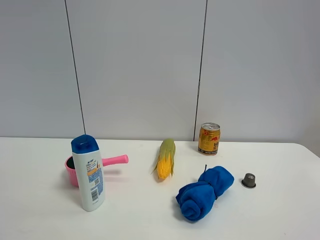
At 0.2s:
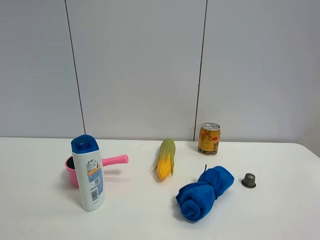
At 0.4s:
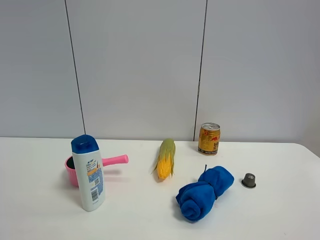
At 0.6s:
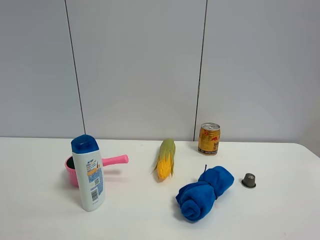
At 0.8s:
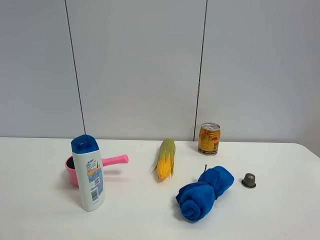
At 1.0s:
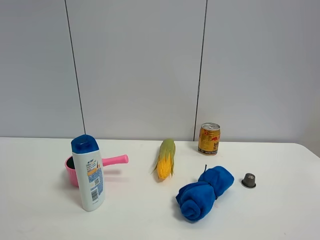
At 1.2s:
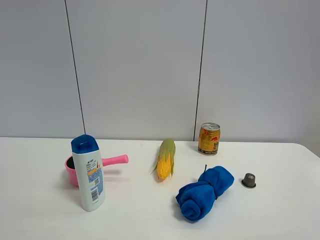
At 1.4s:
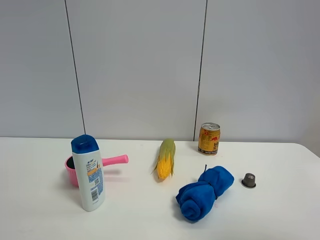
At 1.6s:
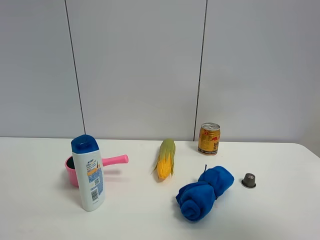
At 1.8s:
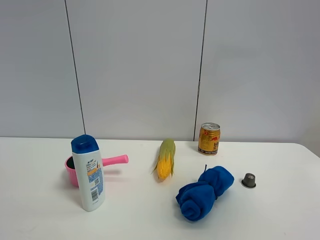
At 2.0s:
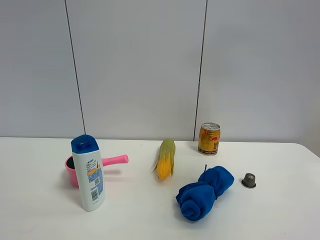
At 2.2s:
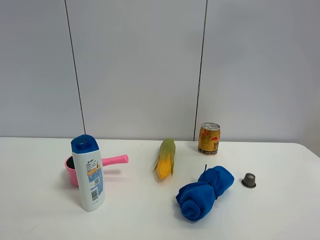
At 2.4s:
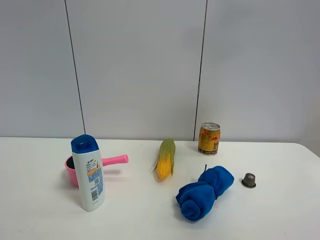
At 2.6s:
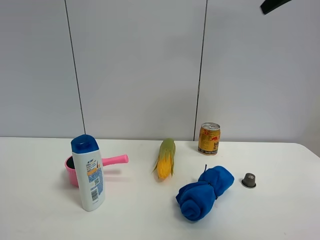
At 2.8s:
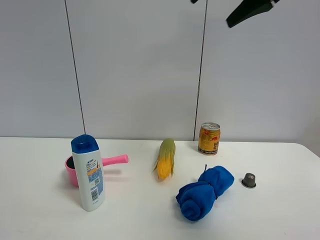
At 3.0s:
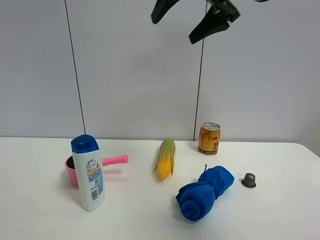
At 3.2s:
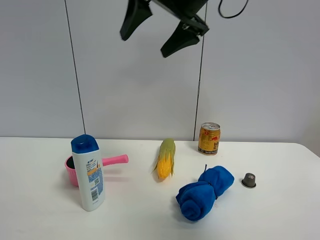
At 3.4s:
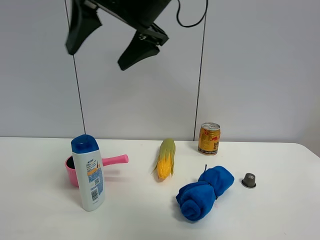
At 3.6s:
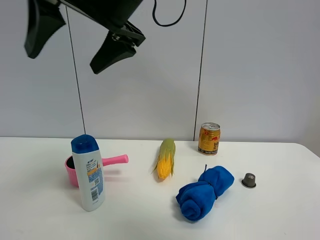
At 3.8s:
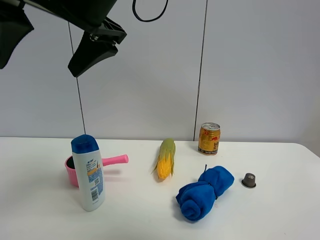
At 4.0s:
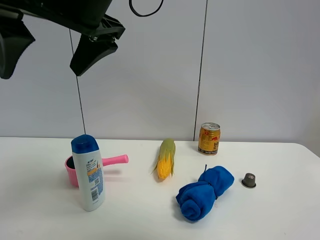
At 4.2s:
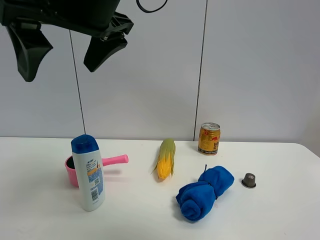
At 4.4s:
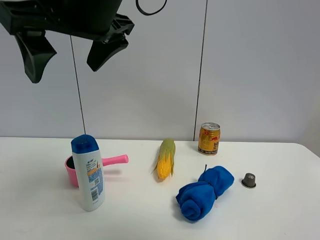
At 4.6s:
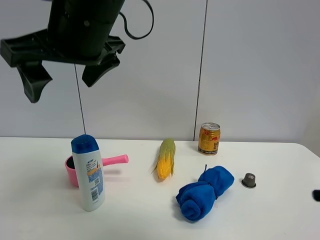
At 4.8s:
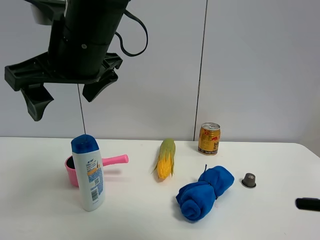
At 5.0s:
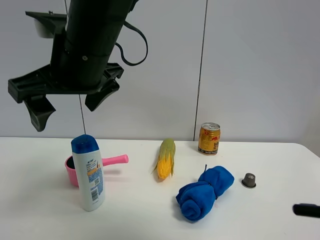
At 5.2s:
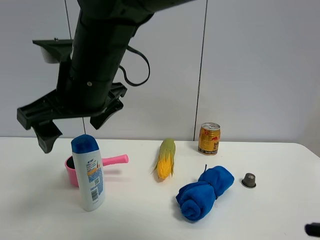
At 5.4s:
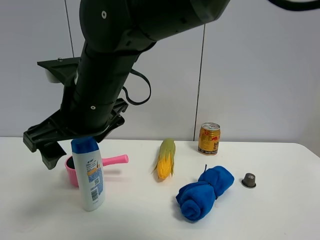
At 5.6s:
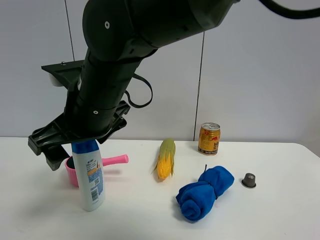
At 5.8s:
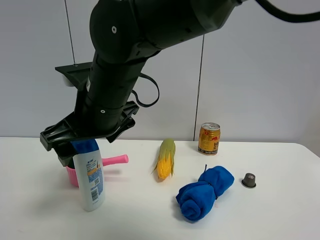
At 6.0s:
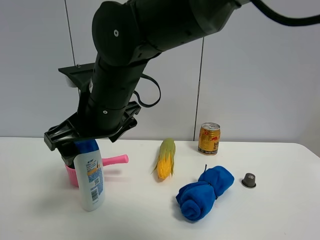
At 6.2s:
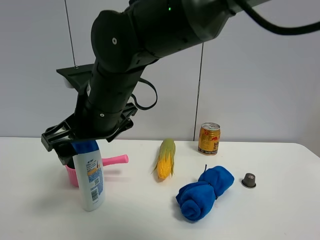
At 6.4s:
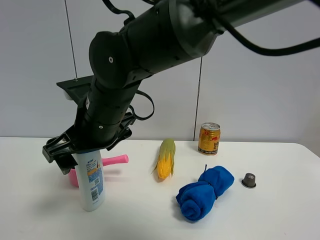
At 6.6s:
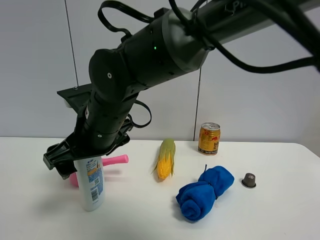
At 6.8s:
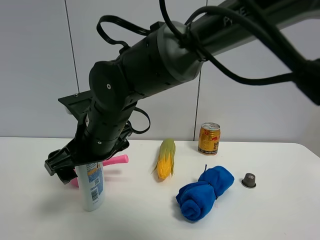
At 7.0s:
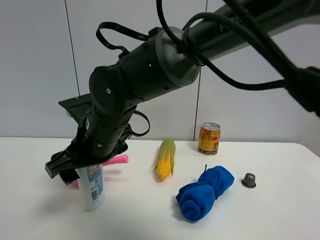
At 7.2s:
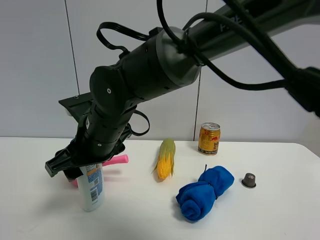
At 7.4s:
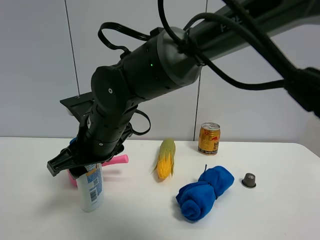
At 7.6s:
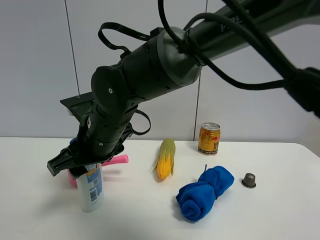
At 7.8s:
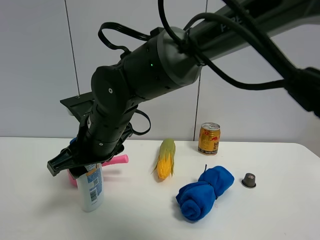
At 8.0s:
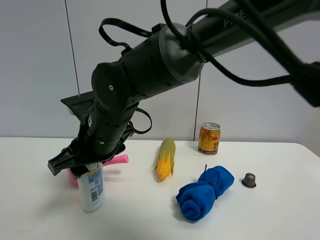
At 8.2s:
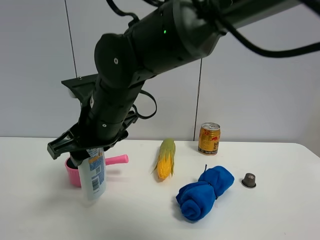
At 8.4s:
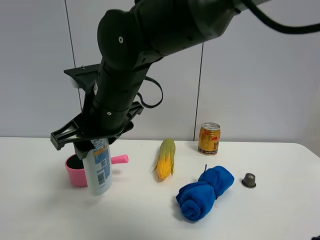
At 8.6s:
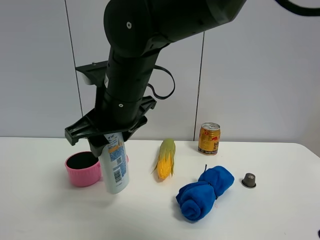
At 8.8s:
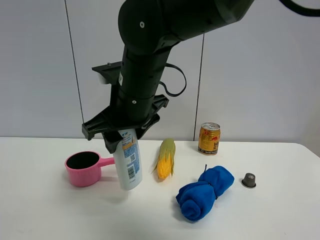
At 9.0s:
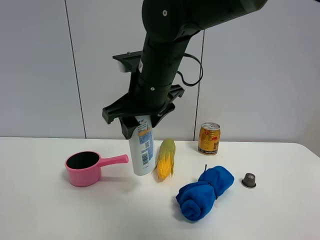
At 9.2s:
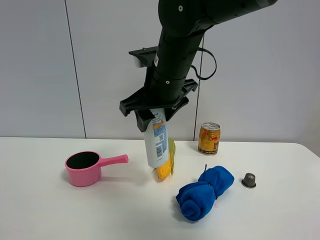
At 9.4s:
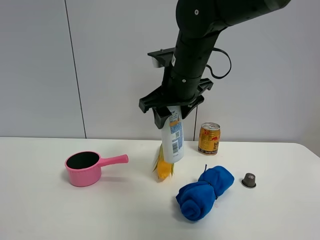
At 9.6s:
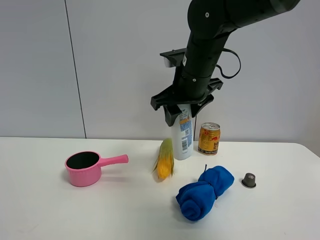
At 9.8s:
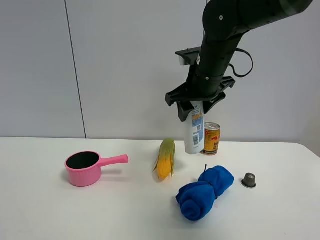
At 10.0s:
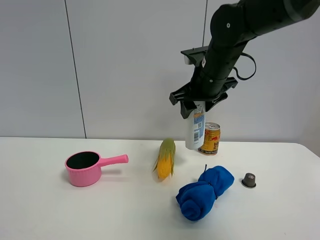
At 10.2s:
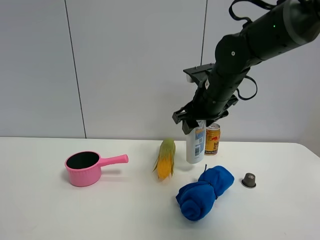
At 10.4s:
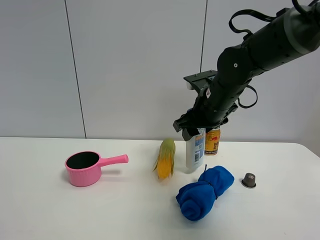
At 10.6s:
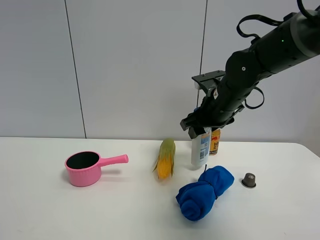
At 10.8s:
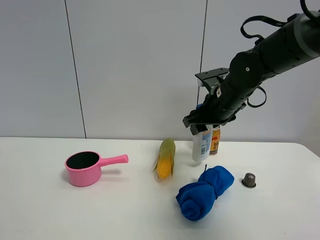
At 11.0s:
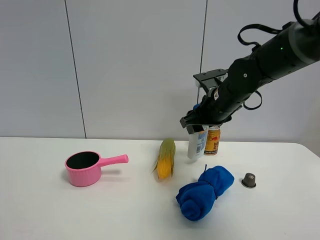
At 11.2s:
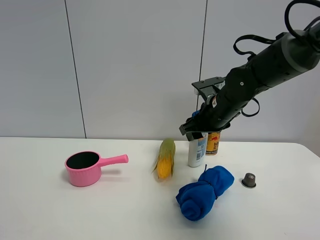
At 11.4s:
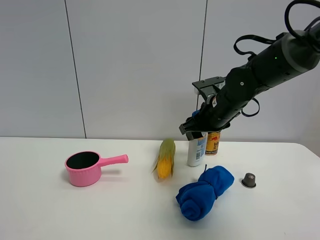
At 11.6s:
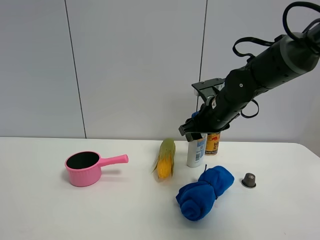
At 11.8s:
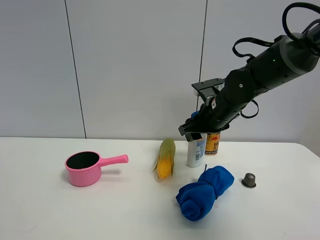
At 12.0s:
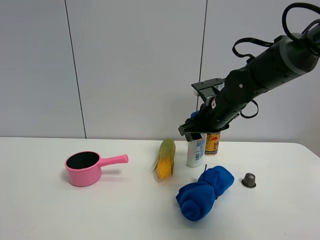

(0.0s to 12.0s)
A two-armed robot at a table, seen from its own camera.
Task of the whole recording: the gripper move the object.
Step, 0.0s - 7.4s: Grasp the shampoo with the right gripper.
0.0s - 1.6s: The right gripper shifts about 15 cm upward and forward.
1.6s - 3.0s: The right gripper is displaced forward and to the left by about 35 cm.
3.0s - 4.4s: The right gripper travels to the left and backward by about 20 cm.
4.4s - 6.0s: The right gripper moves downward, approximately 15 cm.
6.0s - 7.6s: The right gripper goes roughly 5 cm downward, and closes.
7.6s - 9.0s: The right gripper goes some 10 cm upward and to the right.
9.0s - 10.4s: The right gripper heads to the right, forward and downward, covering some 15 cm.
10.4s - 12.0s: The grippers make only small movements.

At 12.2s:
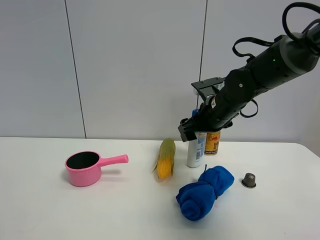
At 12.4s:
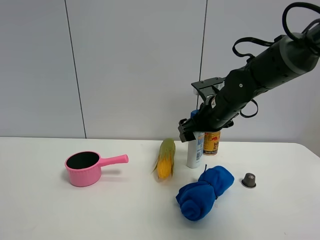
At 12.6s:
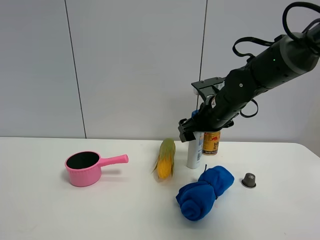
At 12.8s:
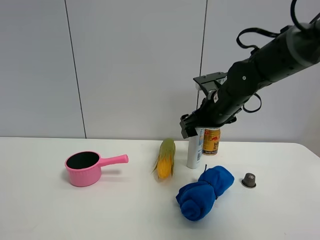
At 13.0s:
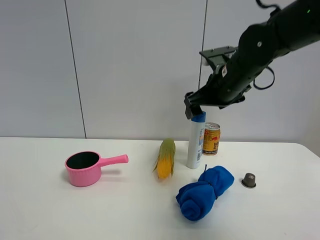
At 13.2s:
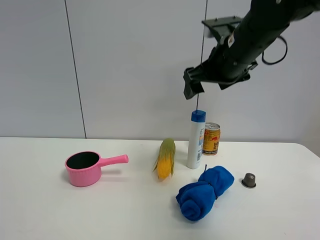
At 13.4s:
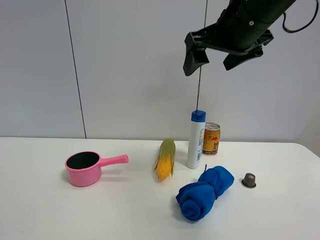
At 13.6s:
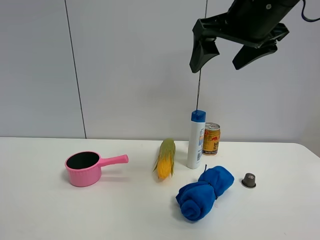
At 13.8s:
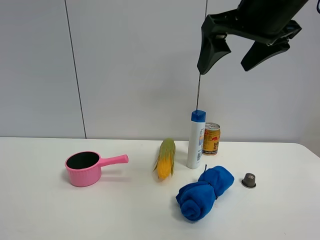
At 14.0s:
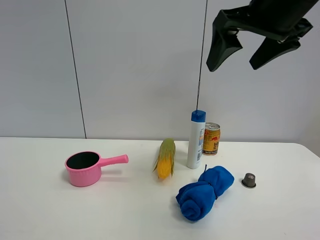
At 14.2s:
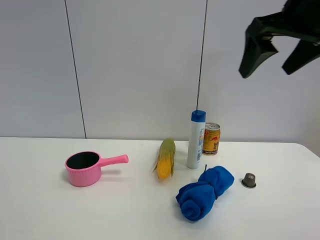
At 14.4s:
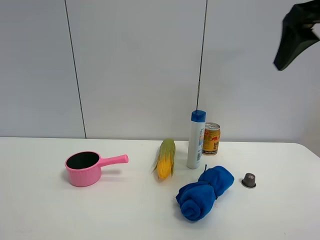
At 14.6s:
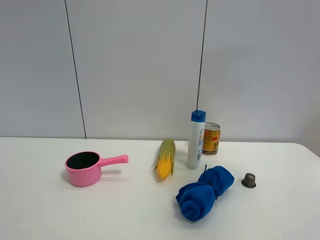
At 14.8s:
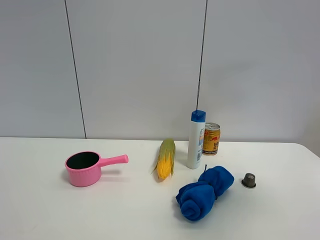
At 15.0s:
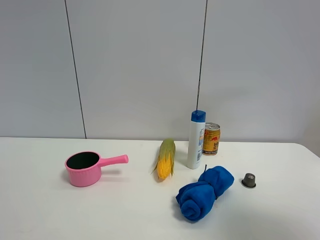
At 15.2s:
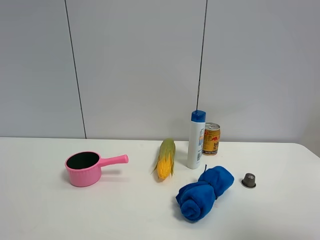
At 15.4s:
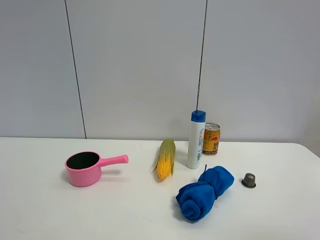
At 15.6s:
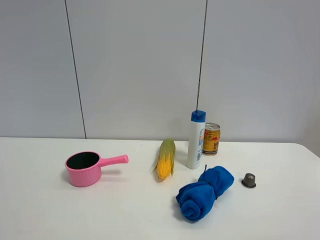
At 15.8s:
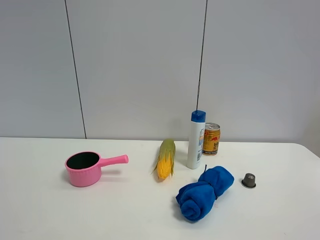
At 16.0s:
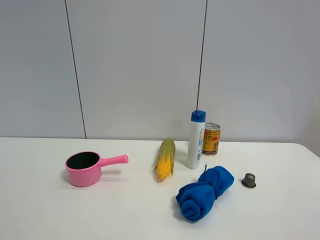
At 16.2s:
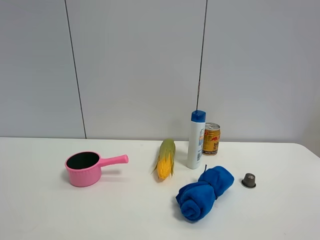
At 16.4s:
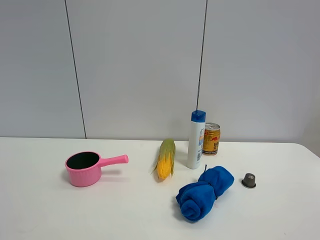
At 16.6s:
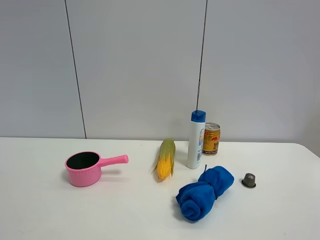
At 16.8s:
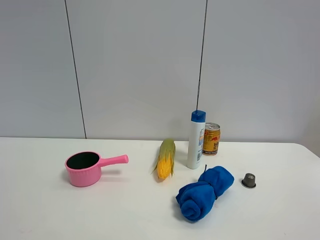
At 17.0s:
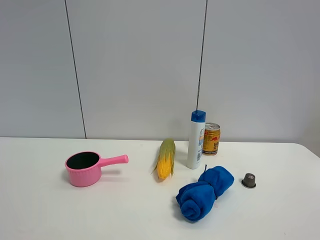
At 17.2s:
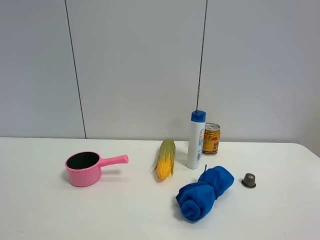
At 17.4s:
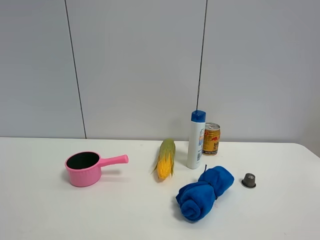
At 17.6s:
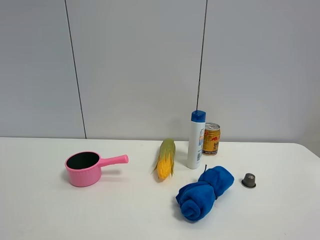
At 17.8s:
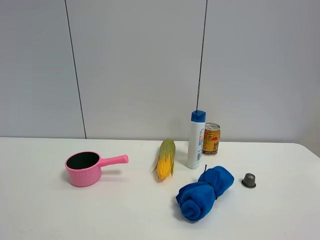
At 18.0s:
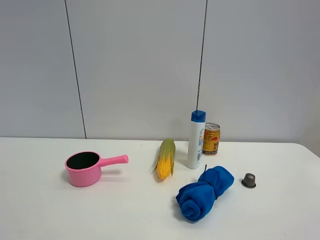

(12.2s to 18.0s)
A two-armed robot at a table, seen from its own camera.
Task of the whole recording: the gripper move the object.
12.2s - 13.6s: The right gripper goes about 25 cm upward and backward.
13.6s - 15.0s: The right gripper is displaced backward and to the right by approximately 25 cm.
15.0s - 16.6s: The right gripper goes approximately 15 cm backward and downward.
16.6s - 18.0s: Neither gripper changes place.

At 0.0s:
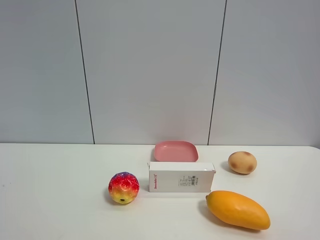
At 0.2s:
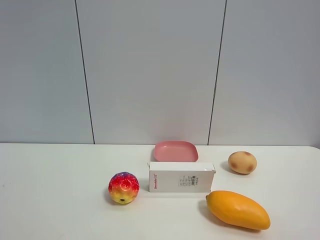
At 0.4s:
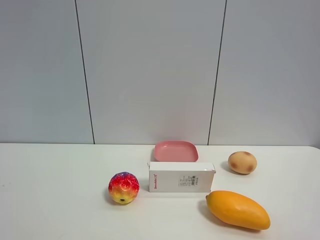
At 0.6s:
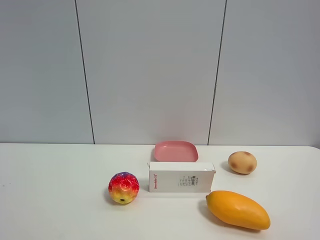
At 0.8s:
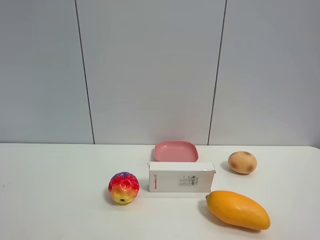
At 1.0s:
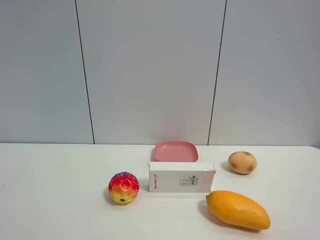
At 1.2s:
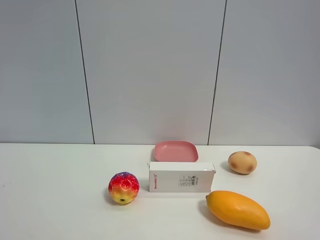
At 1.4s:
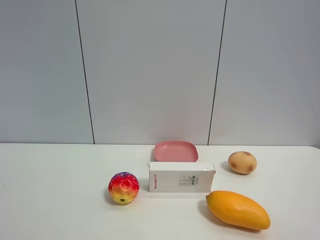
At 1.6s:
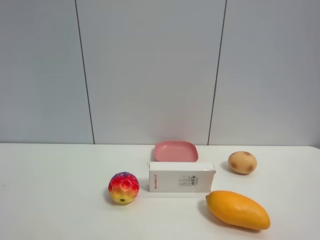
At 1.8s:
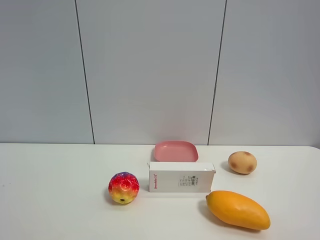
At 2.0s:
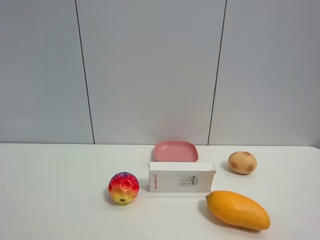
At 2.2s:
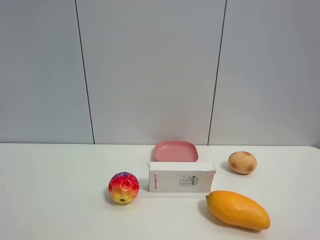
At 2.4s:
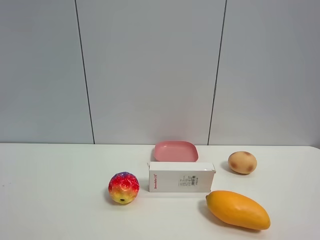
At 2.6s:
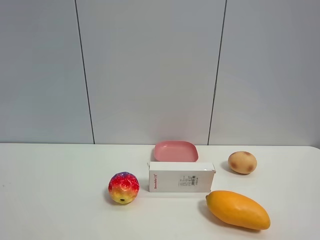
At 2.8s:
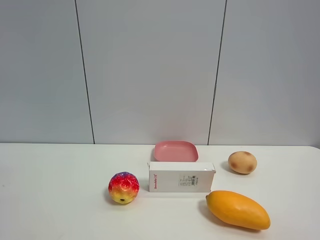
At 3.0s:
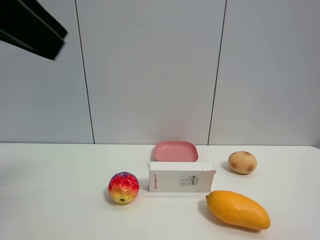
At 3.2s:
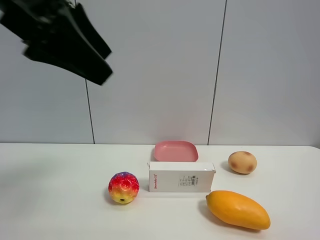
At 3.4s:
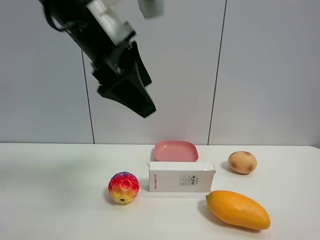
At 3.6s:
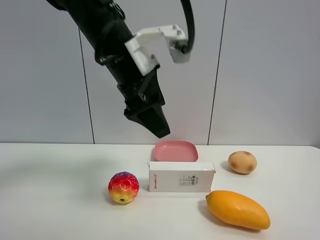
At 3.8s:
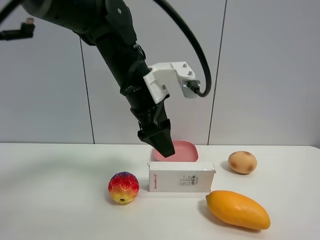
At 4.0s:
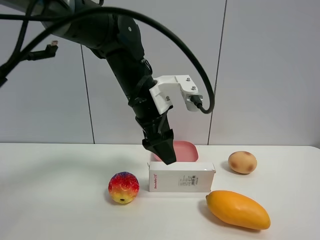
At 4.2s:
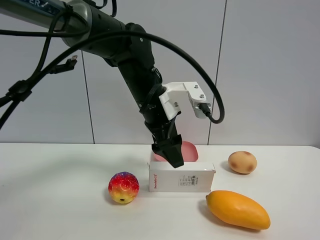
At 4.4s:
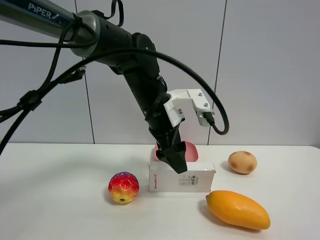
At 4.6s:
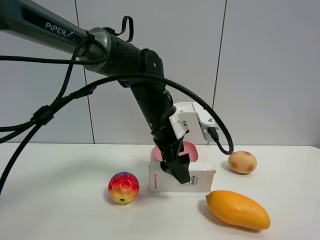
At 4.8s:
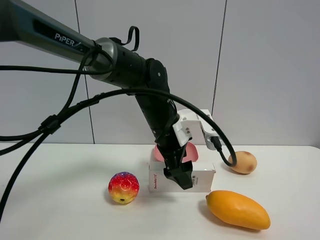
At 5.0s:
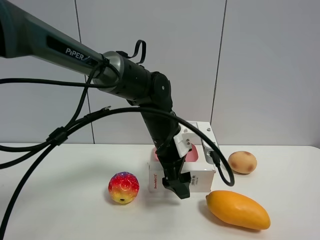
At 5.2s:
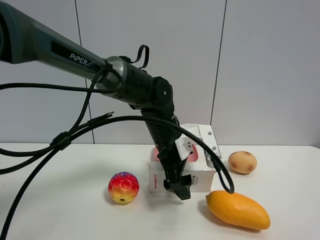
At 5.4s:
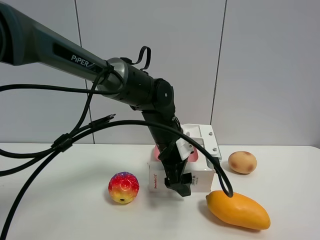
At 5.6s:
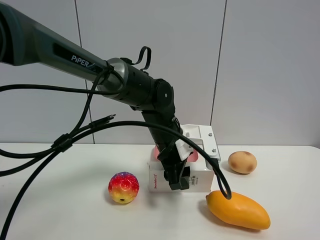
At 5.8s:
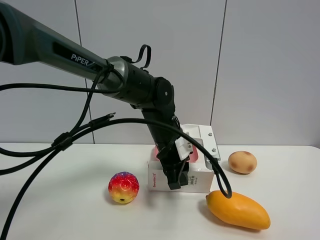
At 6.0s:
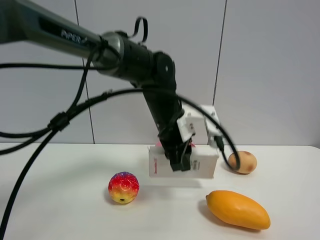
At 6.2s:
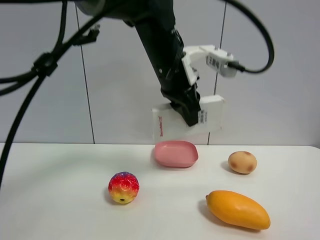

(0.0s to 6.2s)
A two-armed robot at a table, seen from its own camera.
Task of the whole recording: the gripper move the object.
0.0s - 1.6s: Neither gripper changes place.
1.6s - 3.2s: The left gripper moves forward and to the right, roughly 30 cm.
3.2s - 4.6s: The left gripper moves downward, to the right and forward, roughly 30 cm.
4.6s - 6.2s: The left gripper goes some 10 cm upward, and closes.
